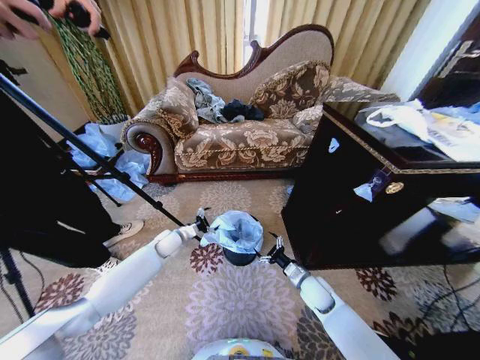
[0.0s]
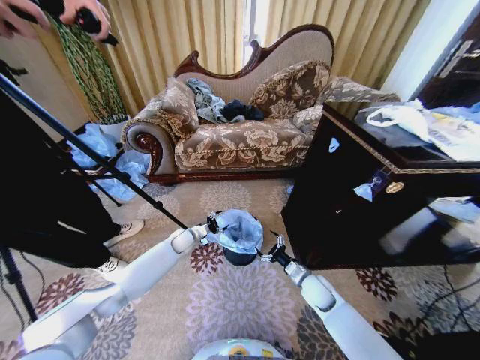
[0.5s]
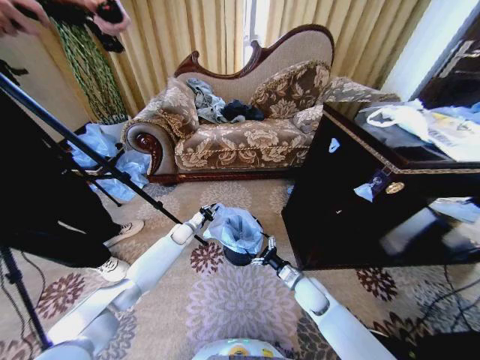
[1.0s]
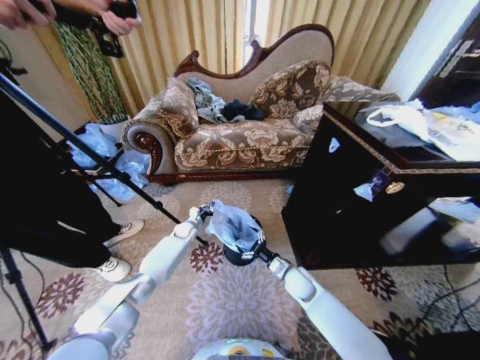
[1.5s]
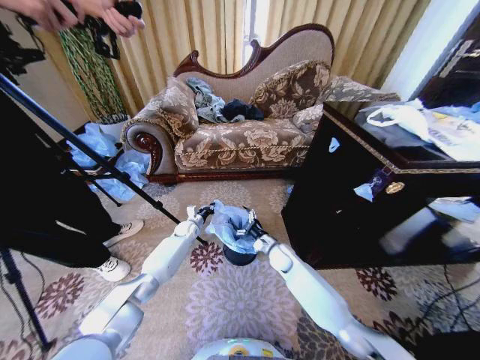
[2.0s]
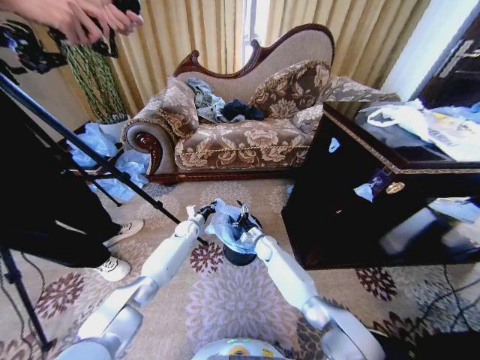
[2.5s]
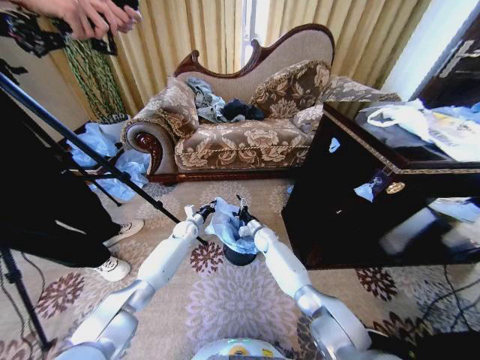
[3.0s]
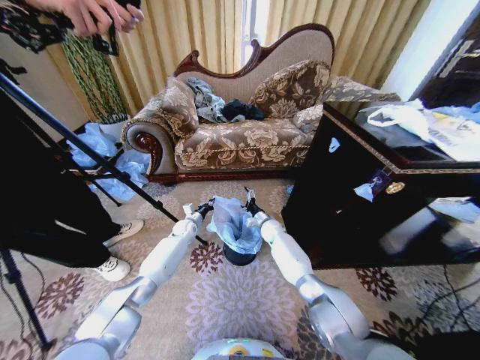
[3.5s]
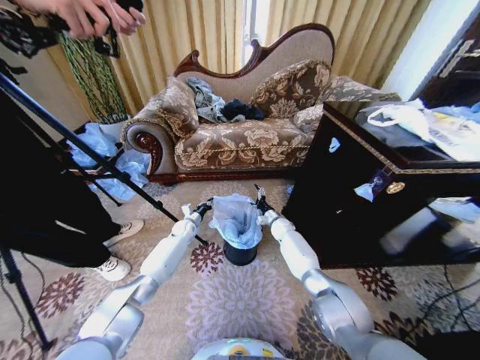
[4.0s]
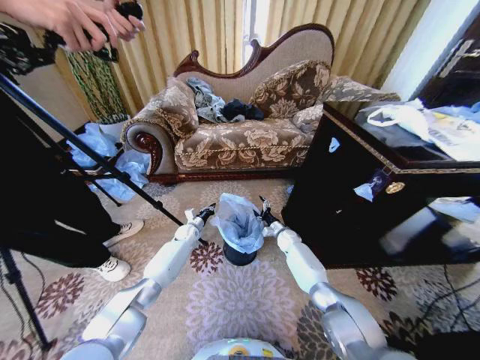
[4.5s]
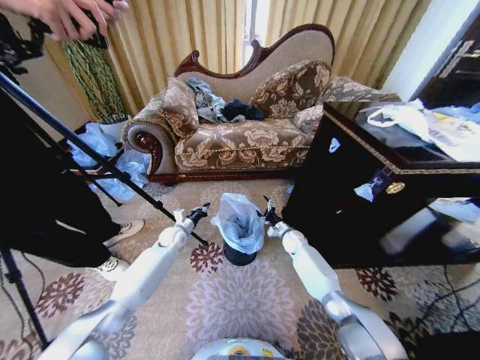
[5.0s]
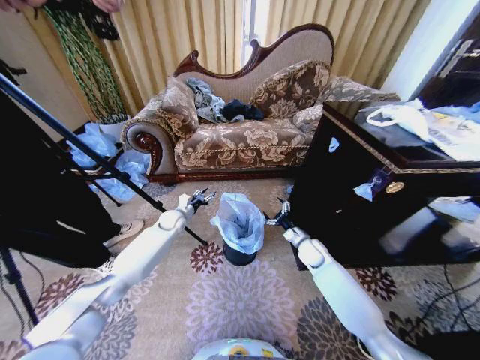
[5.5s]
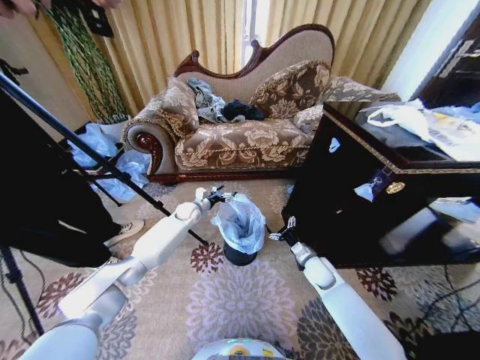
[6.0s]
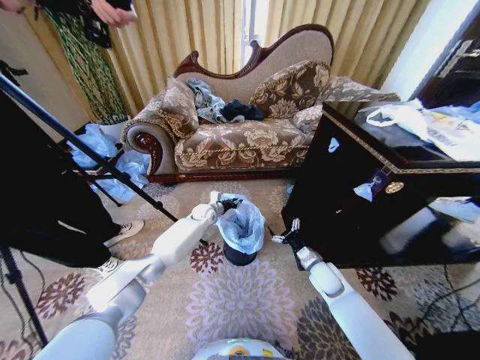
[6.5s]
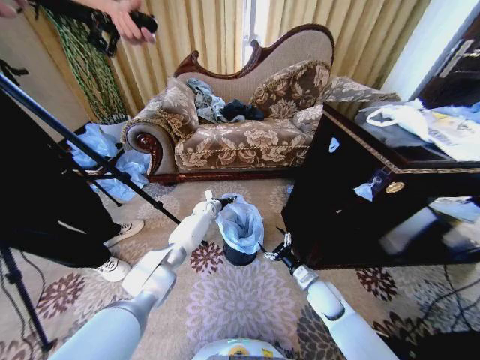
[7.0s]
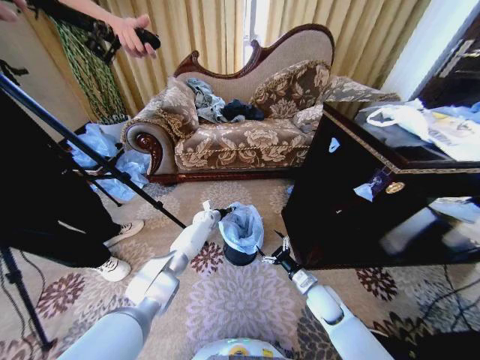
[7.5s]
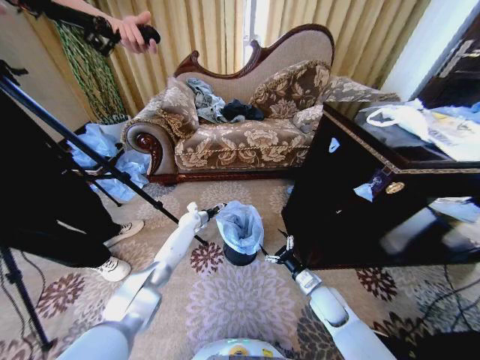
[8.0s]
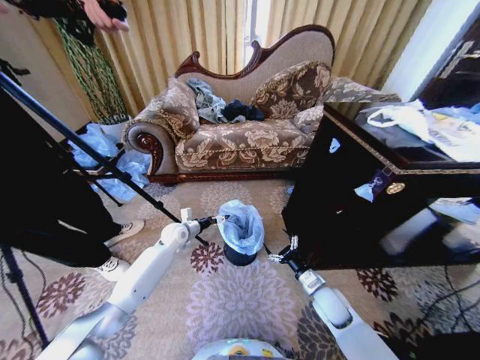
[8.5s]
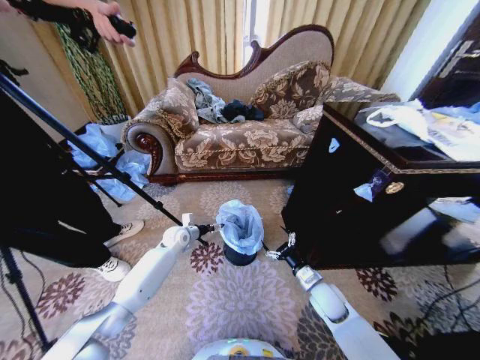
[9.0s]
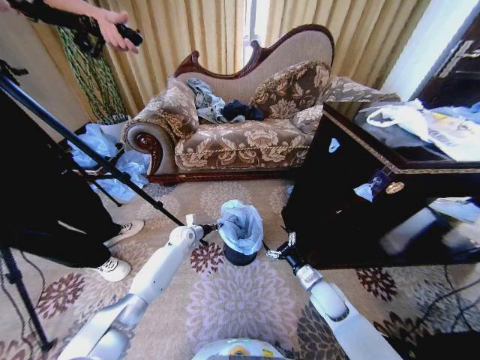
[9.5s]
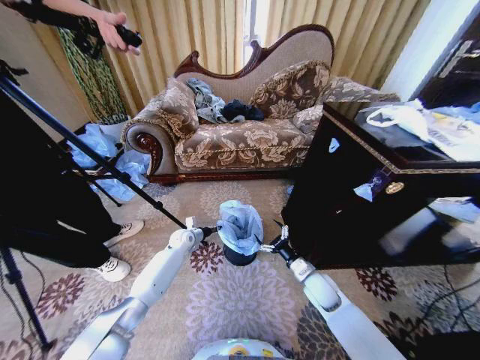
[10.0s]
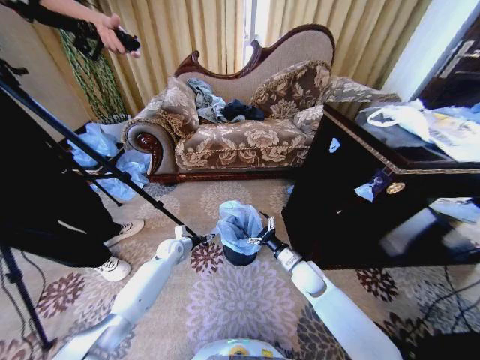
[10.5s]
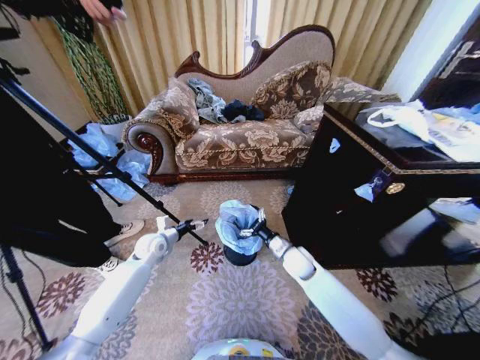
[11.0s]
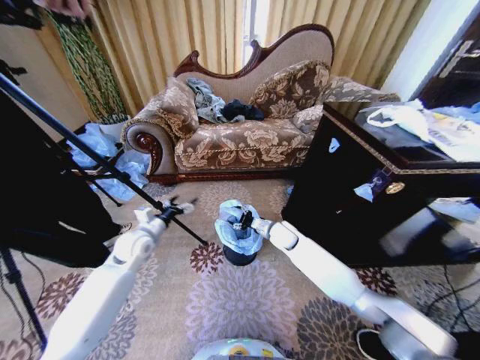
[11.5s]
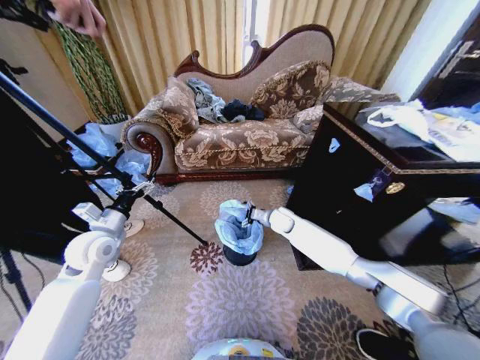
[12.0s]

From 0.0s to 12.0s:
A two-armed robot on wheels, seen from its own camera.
Task of the whole recording: Place a garbage bag over the trash bin.
From 0.0s to 2.0s: The right gripper heads forward and to the left, covering roughly 15 cm; the left gripper shifts approximately 10 cm forward and downward, and closes up.
From 2.0s to 4.0s: The right gripper moves forward, approximately 15 cm.
From 4.0s to 6.0s: The left gripper travels upward by approximately 10 cm, and opens up, while the right gripper heads backward and to the right, covering approximately 20 cm.
From 6.0s to 8.0s: The left gripper moves downward, roughly 10 cm, and closes, then reopens; the right gripper travels backward by approximately 10 cm.
From 8.0s to 10.0s: The left gripper moves backward, about 10 cm, and closes.
From 10.0s to 12.0s: The right gripper goes some 25 cm forward and to the left. Meanwhile the left gripper shifts some 30 cm upward, backward and to the left, and opens its fingers.

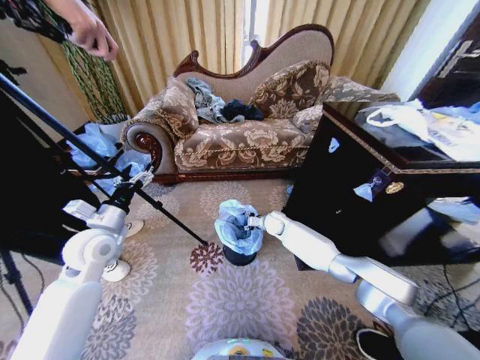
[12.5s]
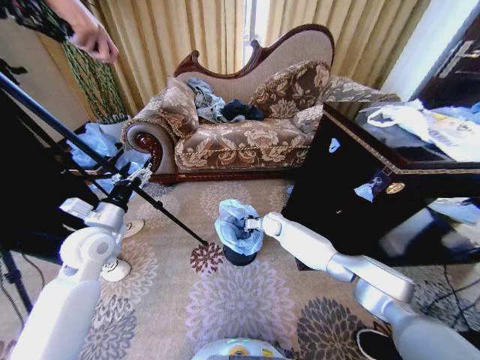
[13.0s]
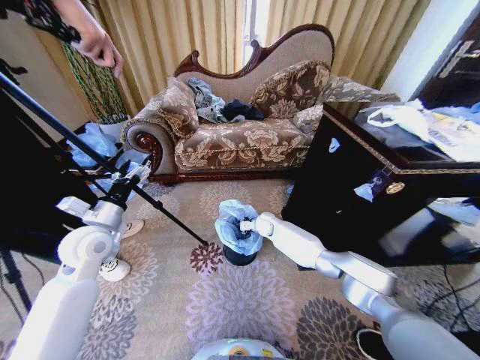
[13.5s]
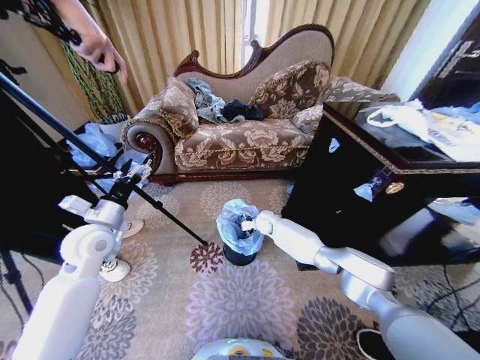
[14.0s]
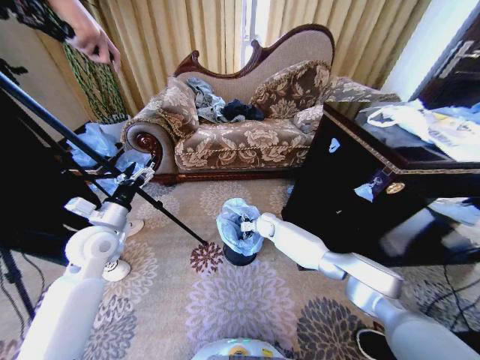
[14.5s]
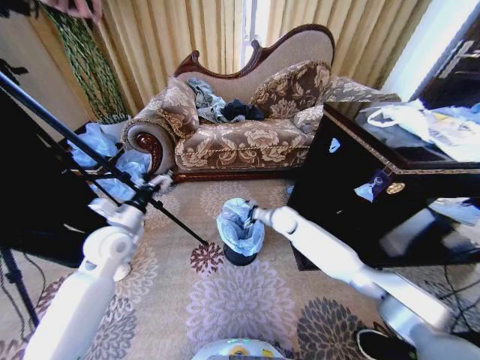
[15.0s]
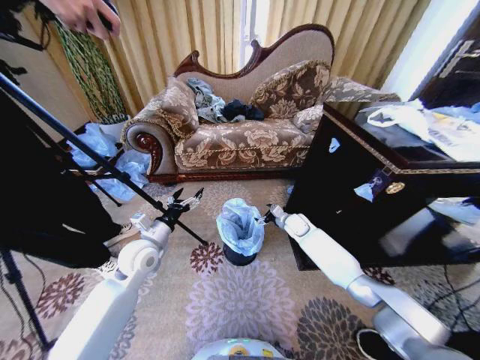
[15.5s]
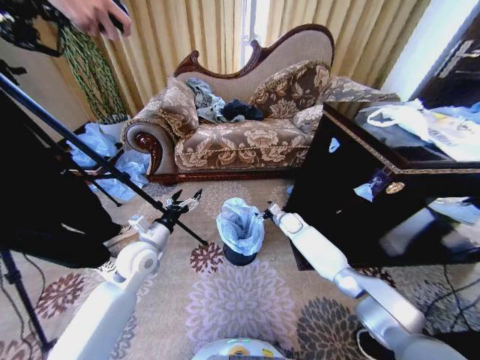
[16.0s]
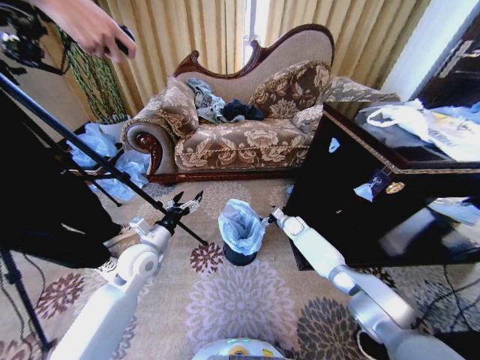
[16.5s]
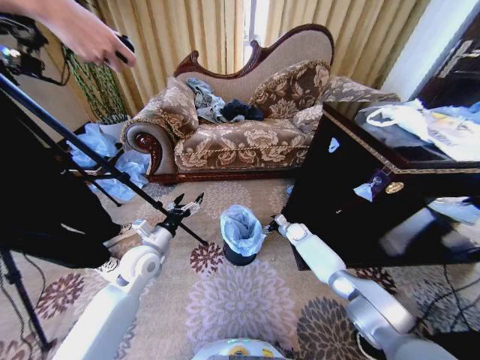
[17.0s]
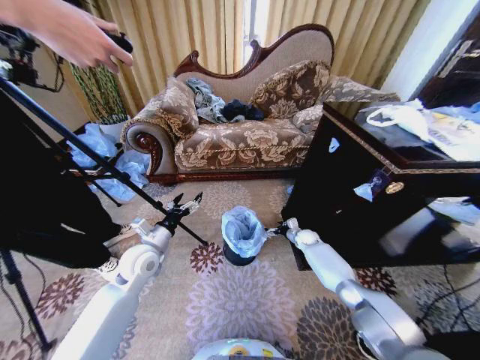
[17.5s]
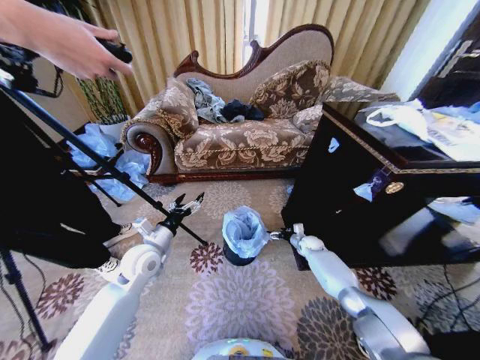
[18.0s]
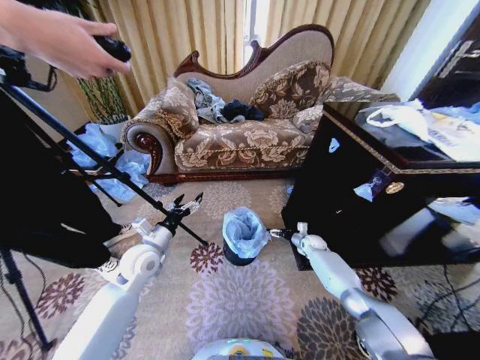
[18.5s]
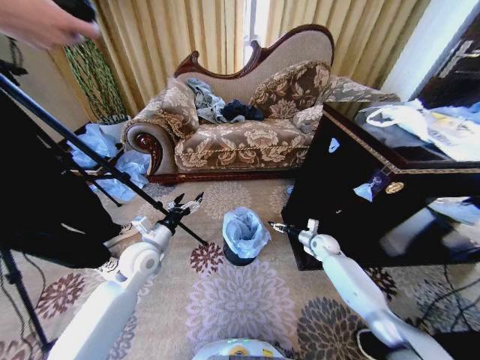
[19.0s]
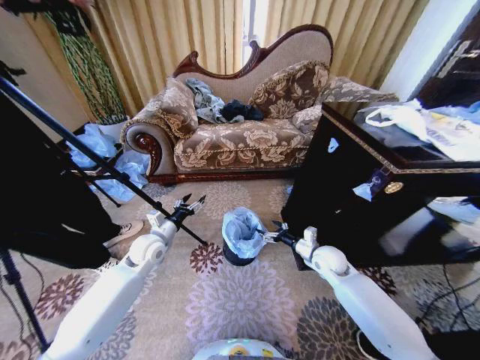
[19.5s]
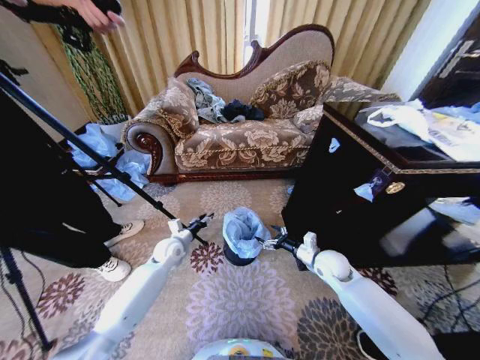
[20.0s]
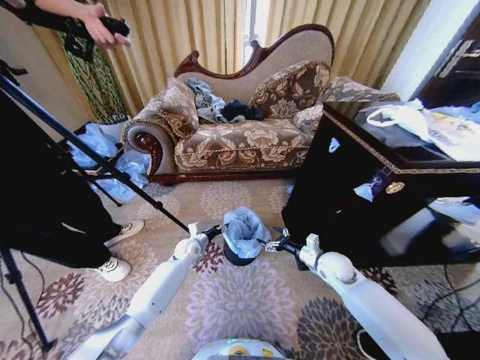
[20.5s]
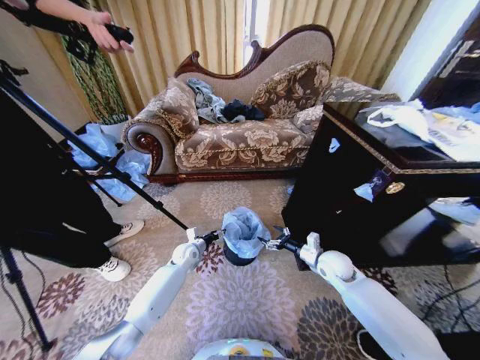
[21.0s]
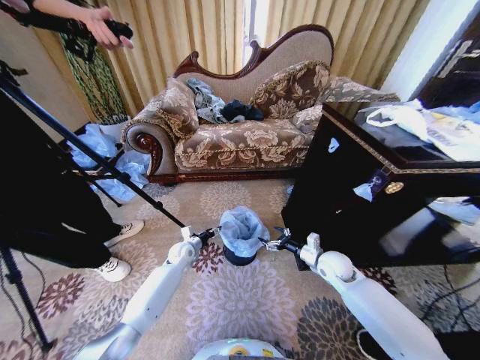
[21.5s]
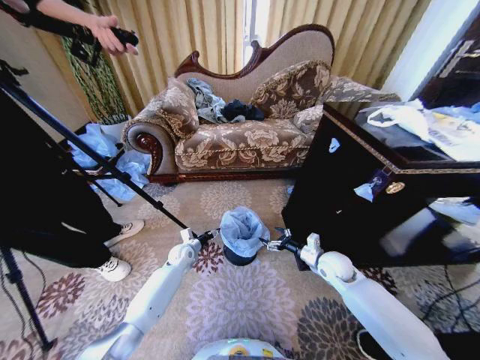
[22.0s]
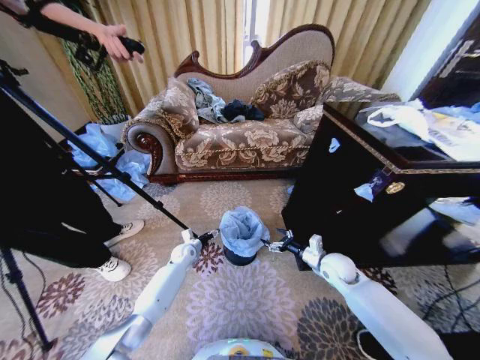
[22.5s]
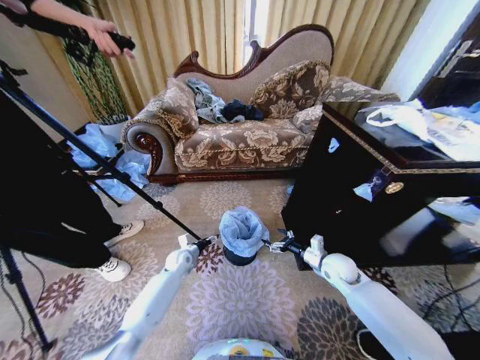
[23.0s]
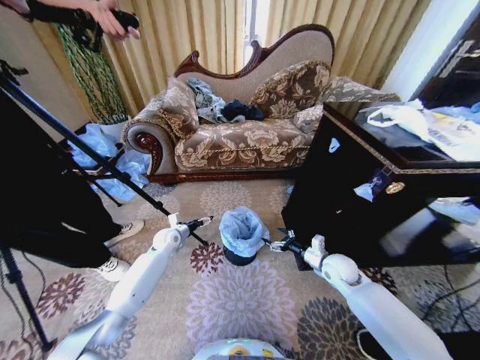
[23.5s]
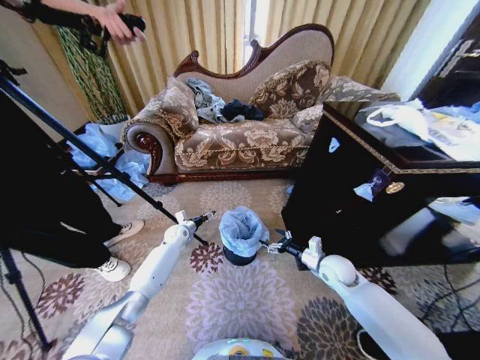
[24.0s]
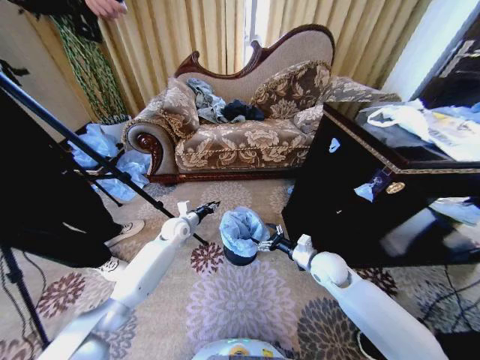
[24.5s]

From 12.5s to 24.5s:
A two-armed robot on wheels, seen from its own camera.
Task of the whole recording: Place a garbage bag over the trash bin.
From 12.5s to 14.5s: The right gripper opens up.
From 14.5s to 16.5s: The right gripper is displaced to the right by approximately 15 cm; the left gripper goes some 10 cm downward and to the right.
From 16.5s to 18.5s: The right gripper travels to the right, downward and backward by roughly 10 cm.
From 18.5s to 20.5s: The right gripper shifts roughly 20 cm backward and upward, while the left gripper is displaced downward, forward and to the right by some 20 cm, and closes.
From 20.5s to 22.5s: The left gripper ends up roughly 5 cm from where it was.
From 22.5s to 24.5s: The right gripper moves some 5 cm, while the left gripper travels upward by roughly 15 cm, and closes its fingers.

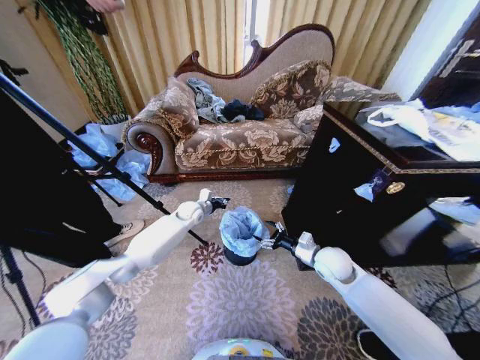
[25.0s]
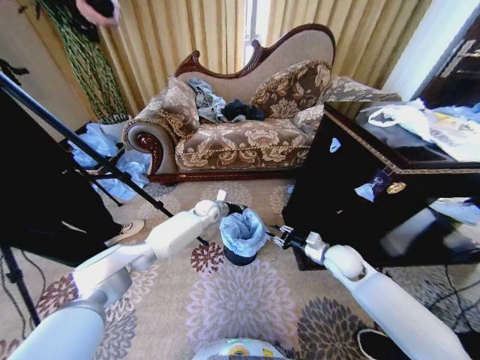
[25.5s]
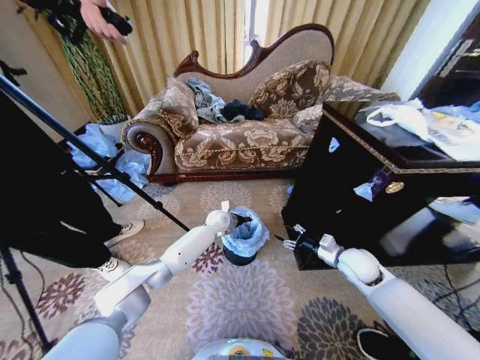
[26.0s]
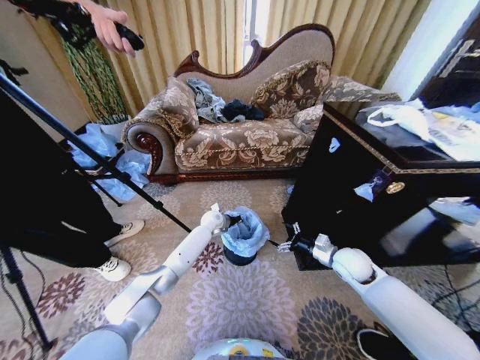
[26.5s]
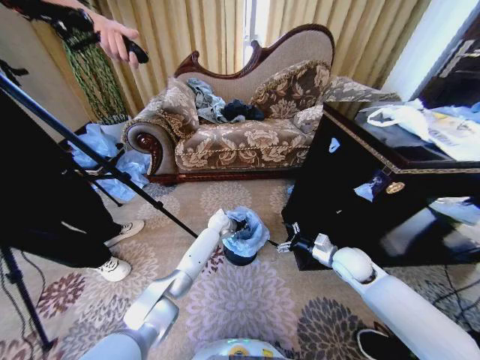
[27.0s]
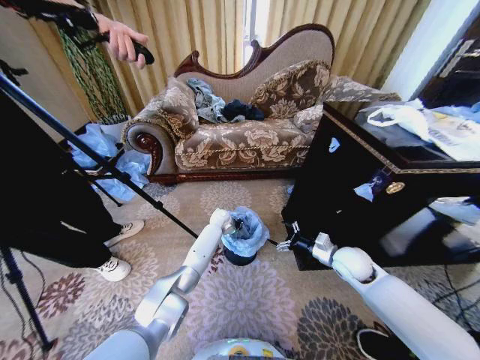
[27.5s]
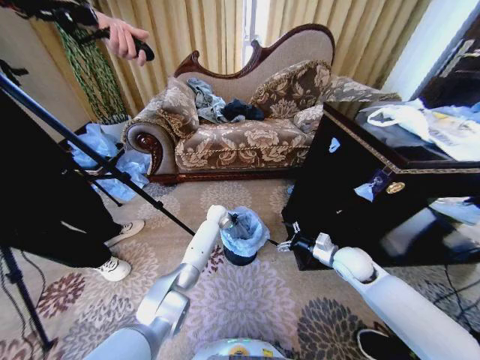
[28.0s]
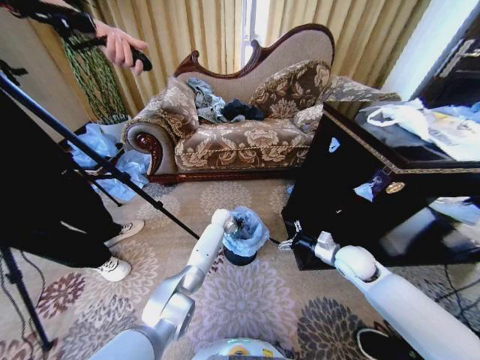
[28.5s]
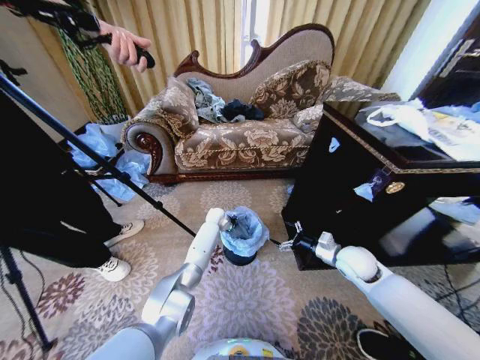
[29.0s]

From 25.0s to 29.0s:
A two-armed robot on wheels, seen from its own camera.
Task of the whole recording: Place a garbage bag over the trash bin.
From 25.0s to 27.0s: The right gripper is displaced to the right by some 5 cm, and closes, then reopens; the left gripper moves to the right and downward, roughly 15 cm.
